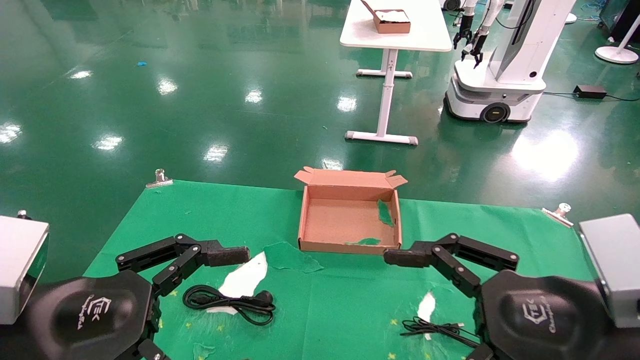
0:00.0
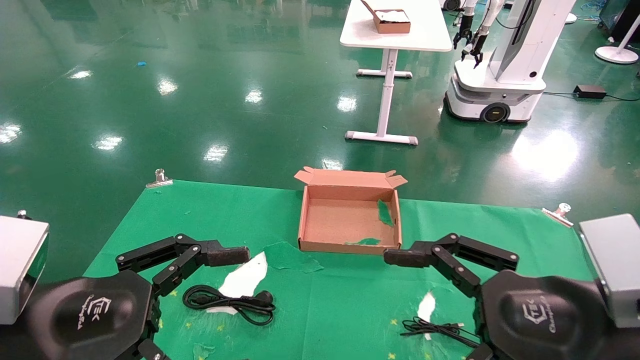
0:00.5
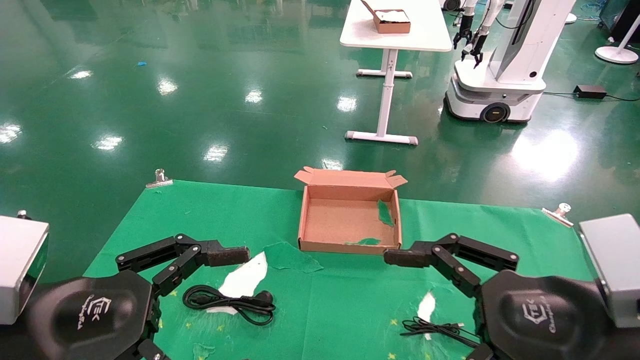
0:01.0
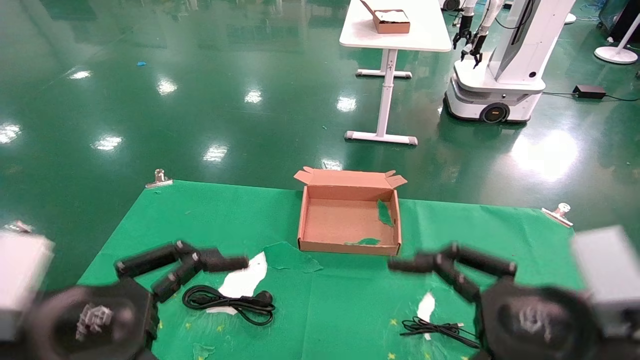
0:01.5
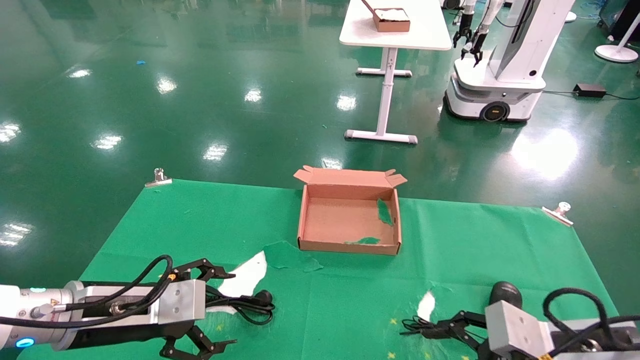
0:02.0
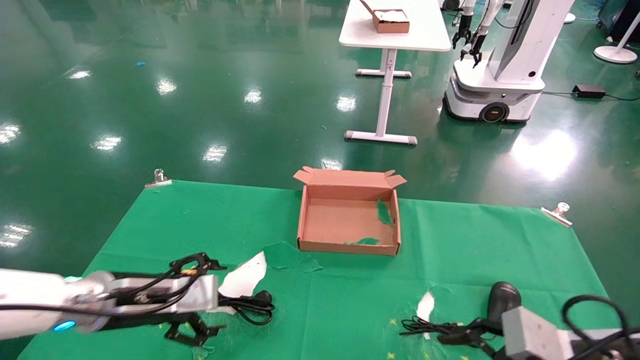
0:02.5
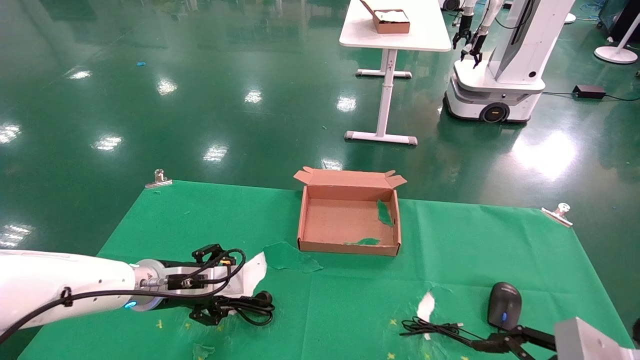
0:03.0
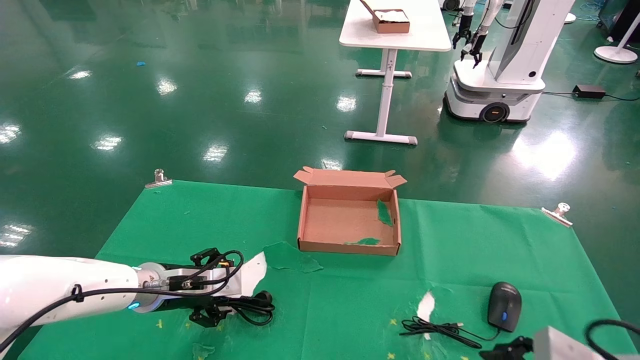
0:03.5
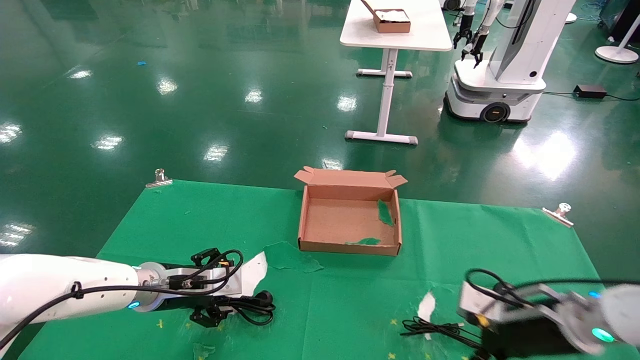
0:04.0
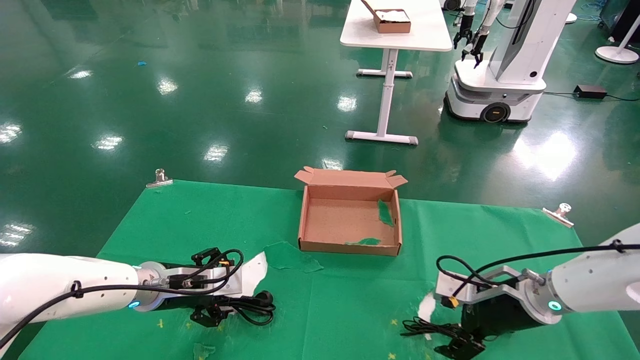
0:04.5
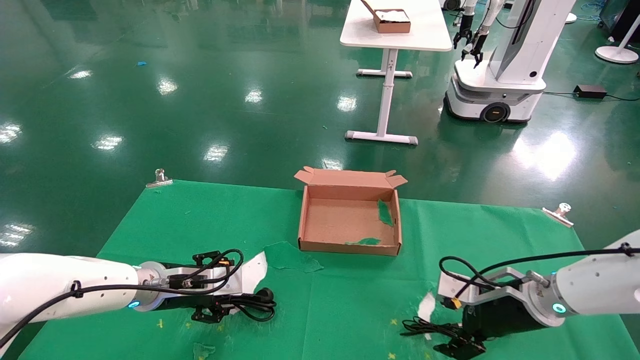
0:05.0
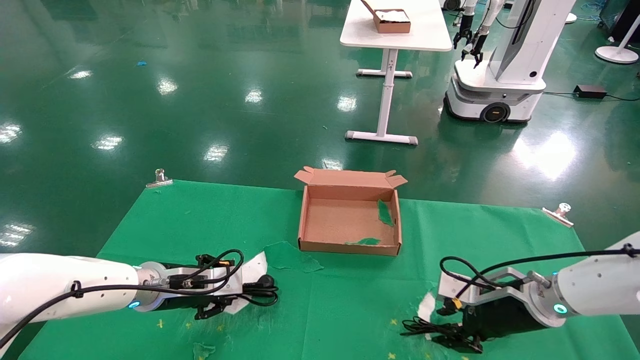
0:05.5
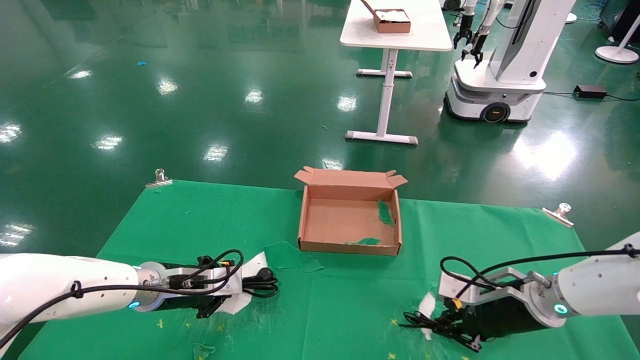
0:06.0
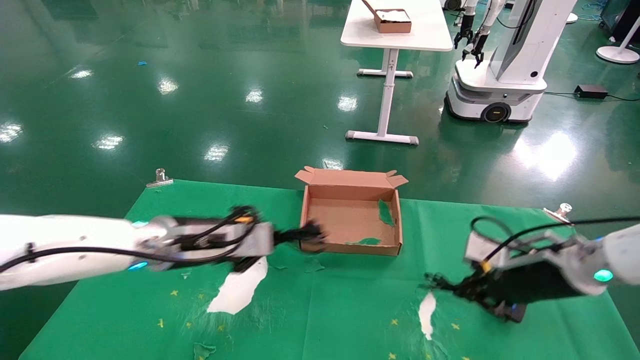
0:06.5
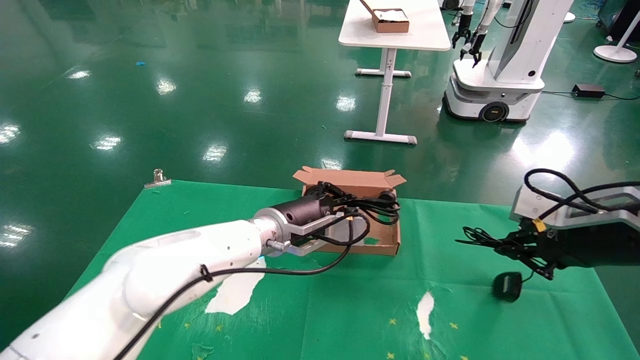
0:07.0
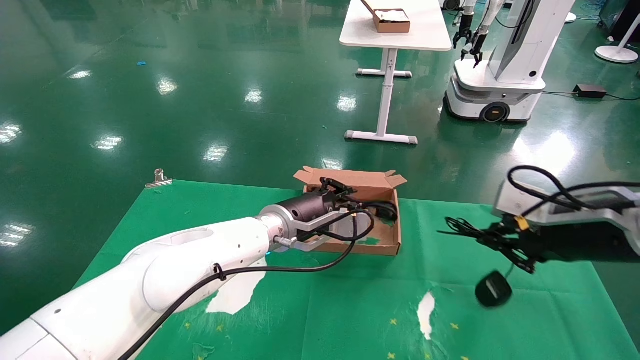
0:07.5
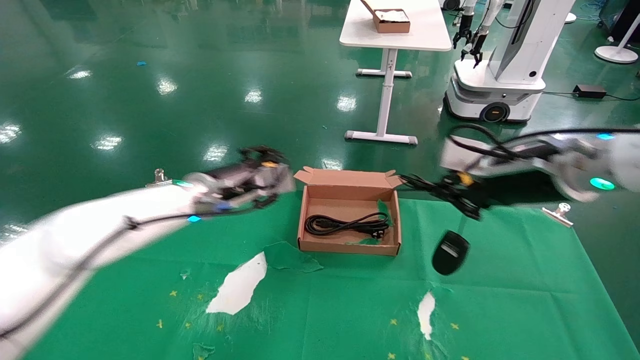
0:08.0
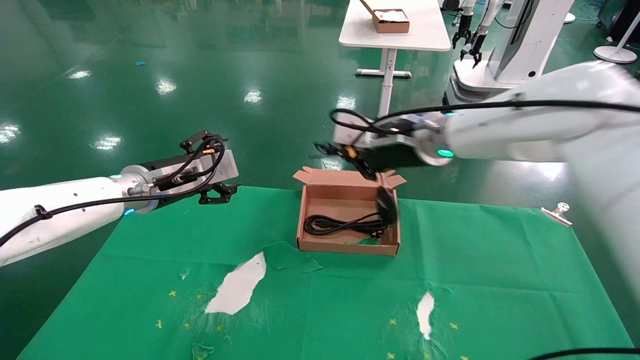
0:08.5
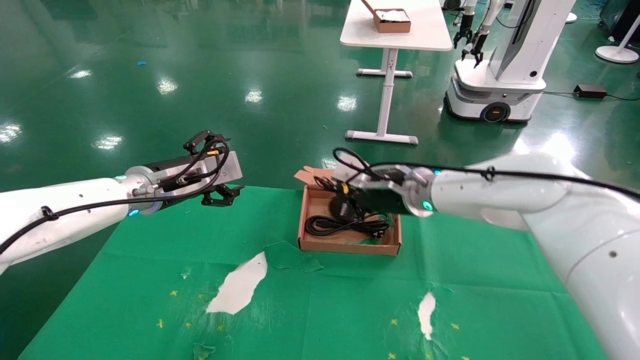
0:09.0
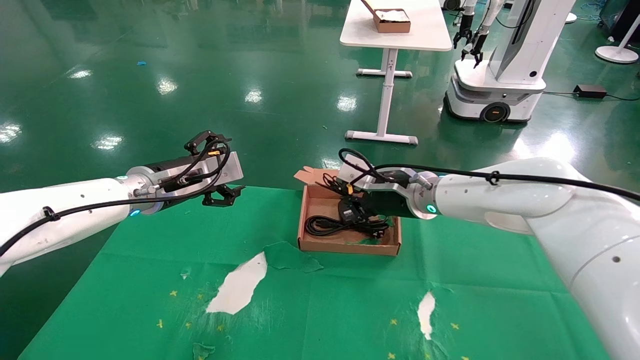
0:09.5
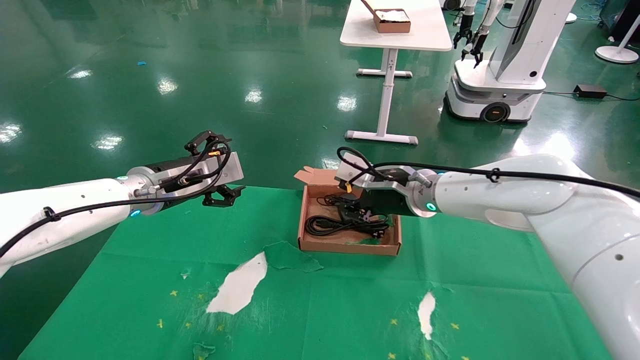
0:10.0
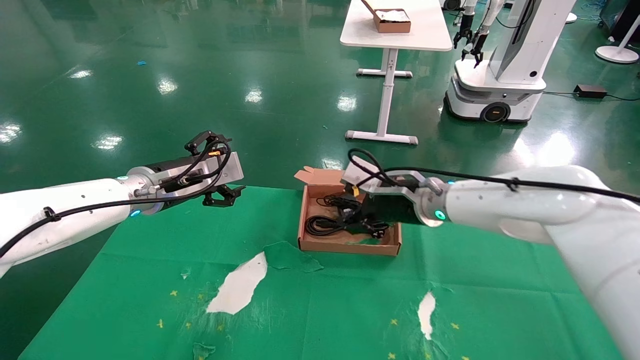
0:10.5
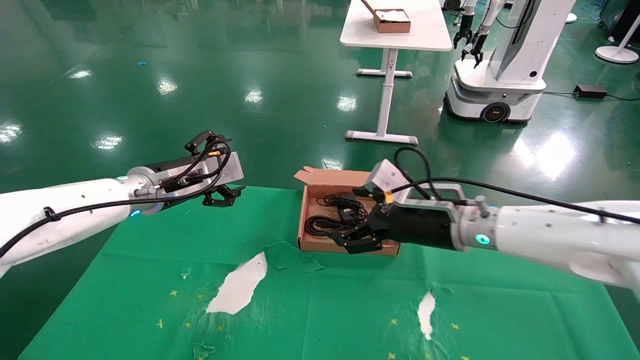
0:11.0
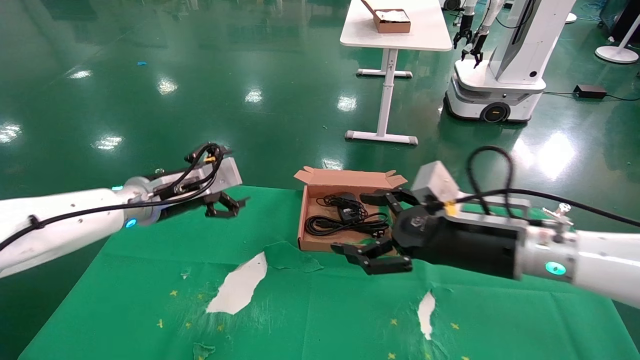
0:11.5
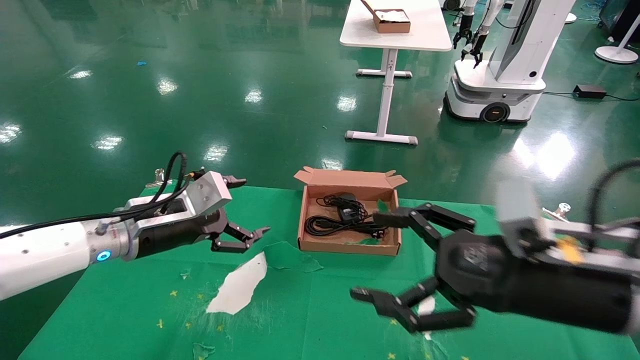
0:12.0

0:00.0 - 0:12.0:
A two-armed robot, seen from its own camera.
Step, 0:02.5 - 0:06.5: Grab and lift both the mouse and power cord from the accessory packaging area at the same time.
Step, 0:07.0 - 0:10.5: Place the mouse and power cord into the box.
0:00.0 - 0:02.0: The right gripper moves downward and forward, about 10 cm, while the left gripper goes approximately 10 cm forward and downward.
0:02.0 - 0:04.0: The grippers both shift forward by approximately 15 cm.
0:04.0 - 0:06.0: The left gripper closes its fingers, while the right gripper closes up.
0:06.0 - 0:08.0: The left gripper heads upward and to the right, covering roughly 15 cm. Meanwhile the right gripper heads upward, covering some 20 cm.
0:08.0 - 0:10.0: The right gripper shifts some 15 cm to the left, forward and downward. Meanwhile the left gripper heads to the left, covering approximately 5 cm, and opens.
0:10.0 - 0:12.0: The left gripper is displaced backward by about 5 cm, while the right gripper is displaced backward and to the right by some 25 cm, and opens.

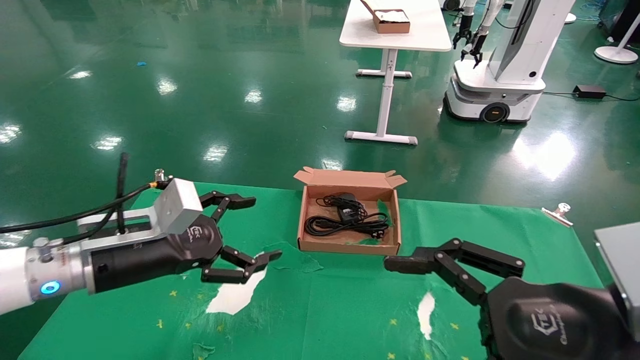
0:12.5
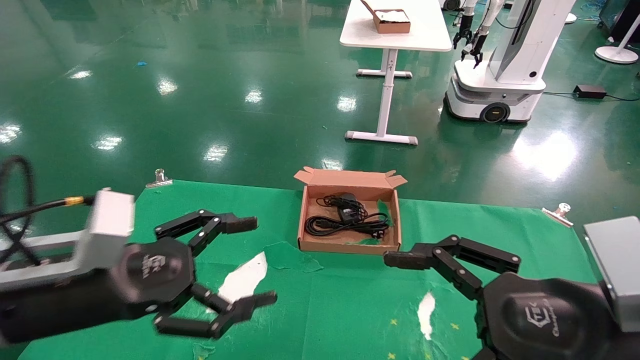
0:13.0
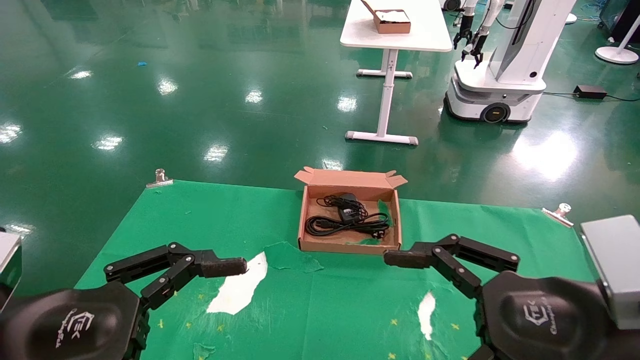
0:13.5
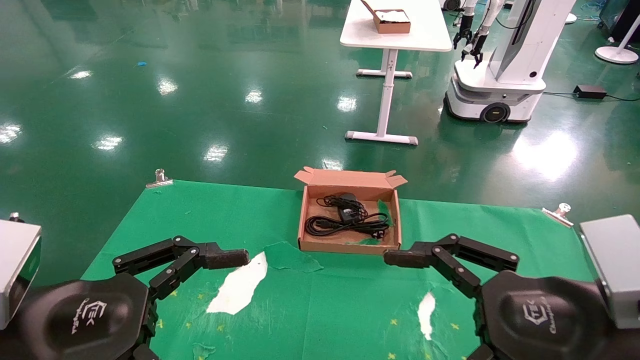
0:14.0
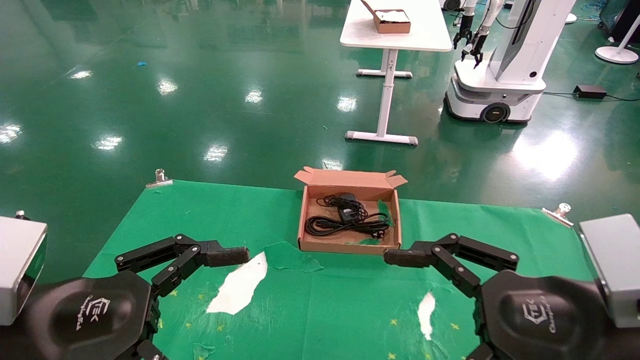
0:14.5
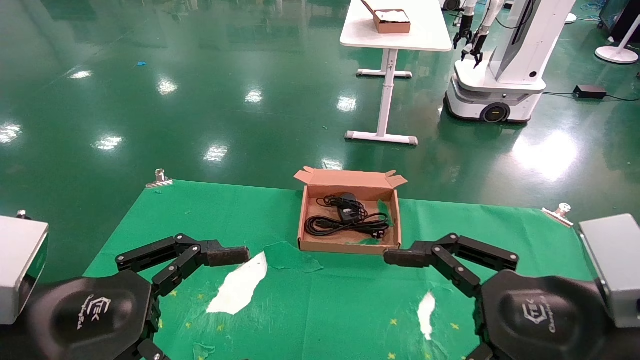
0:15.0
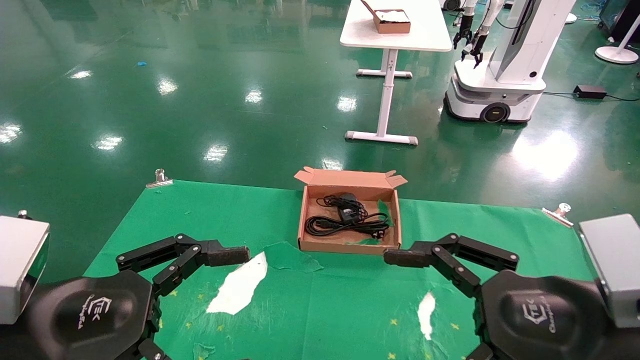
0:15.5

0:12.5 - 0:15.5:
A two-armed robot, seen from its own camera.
0:12.5 - 0:14.0: The left gripper heads backward, covering roughly 15 cm.
0:14.0 - 0:15.5: Neither gripper changes place.
